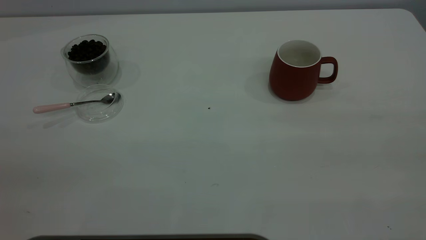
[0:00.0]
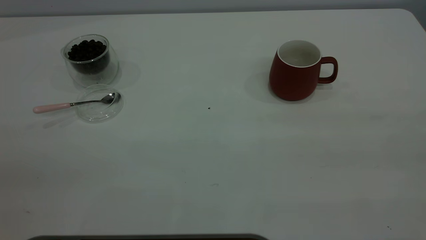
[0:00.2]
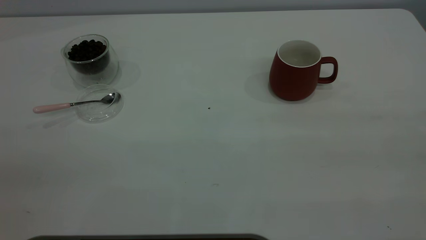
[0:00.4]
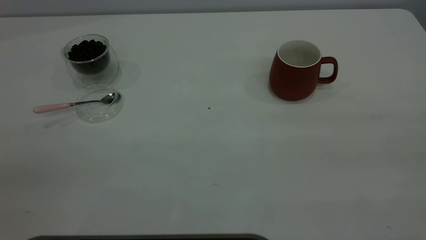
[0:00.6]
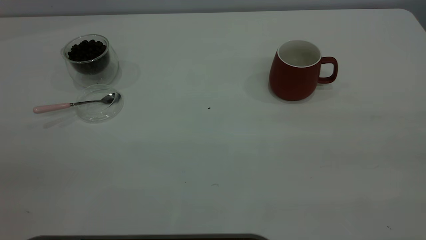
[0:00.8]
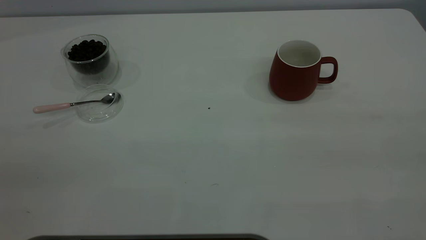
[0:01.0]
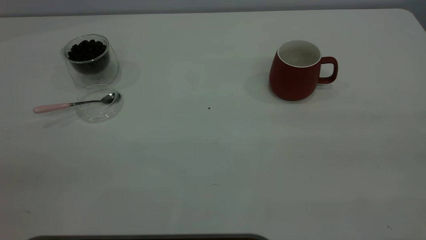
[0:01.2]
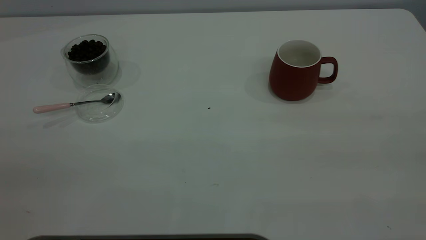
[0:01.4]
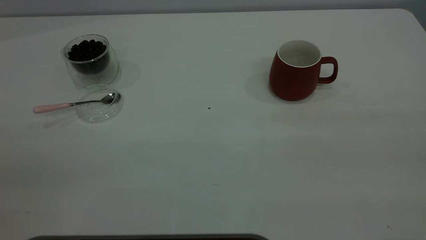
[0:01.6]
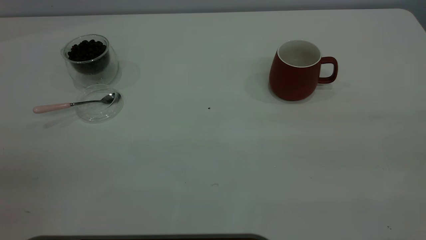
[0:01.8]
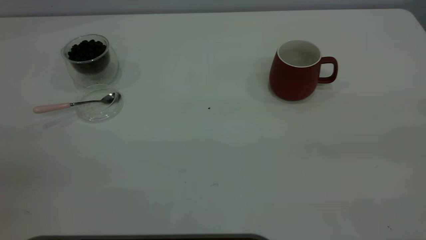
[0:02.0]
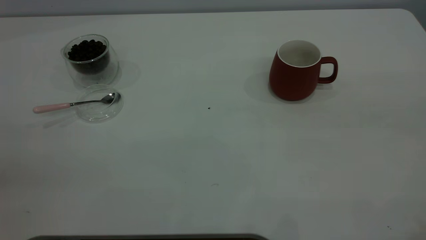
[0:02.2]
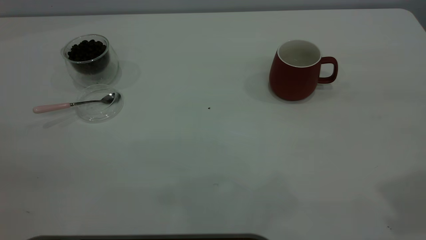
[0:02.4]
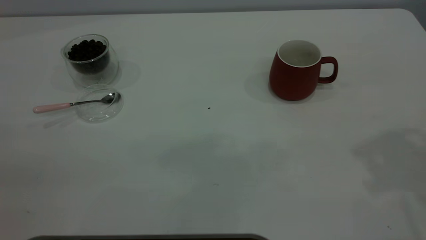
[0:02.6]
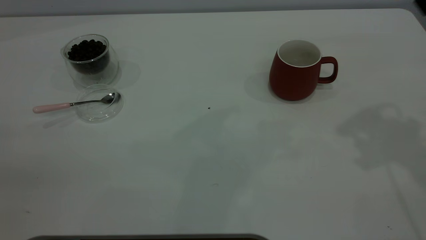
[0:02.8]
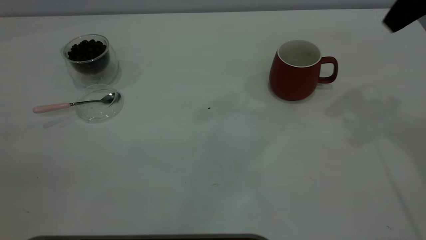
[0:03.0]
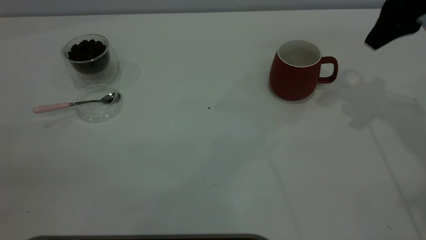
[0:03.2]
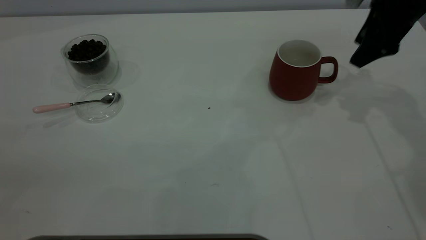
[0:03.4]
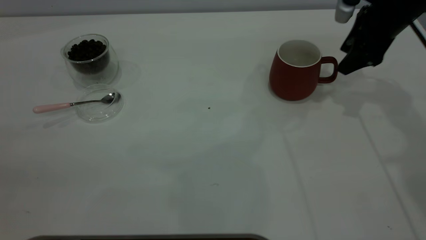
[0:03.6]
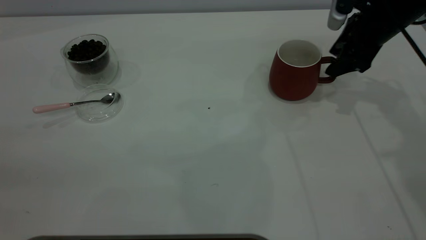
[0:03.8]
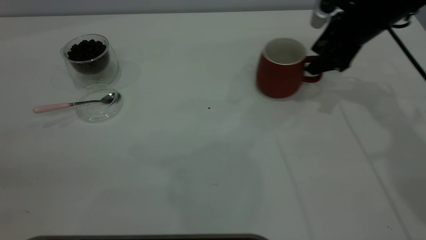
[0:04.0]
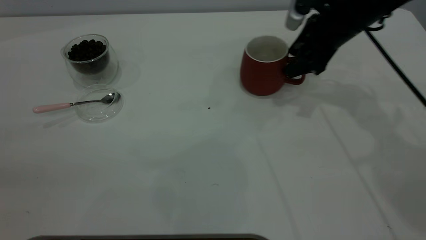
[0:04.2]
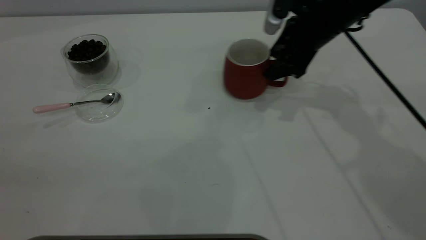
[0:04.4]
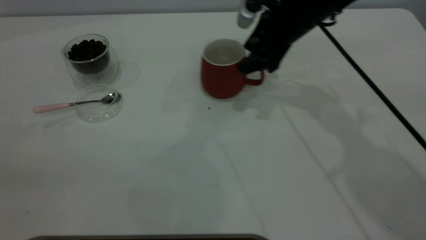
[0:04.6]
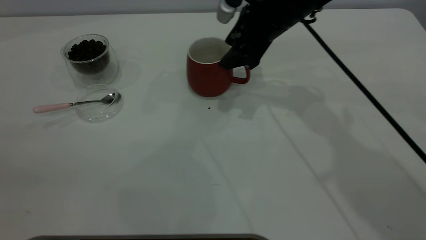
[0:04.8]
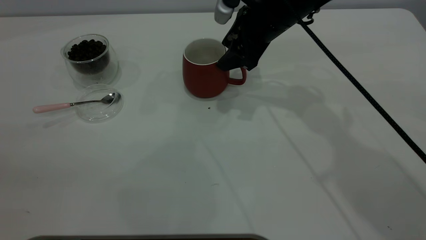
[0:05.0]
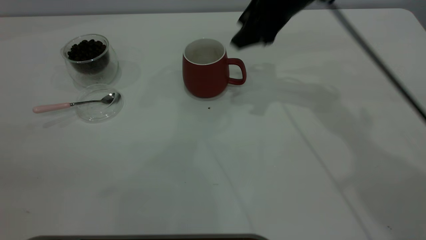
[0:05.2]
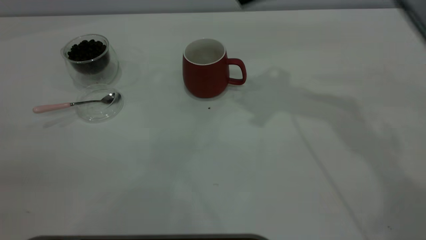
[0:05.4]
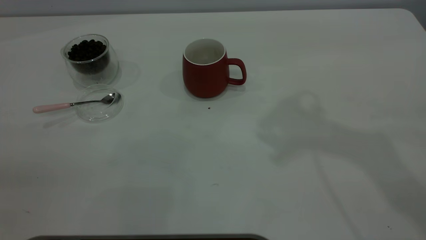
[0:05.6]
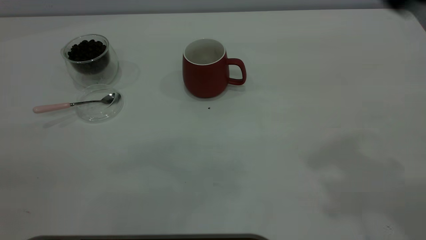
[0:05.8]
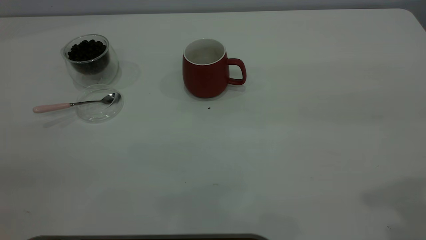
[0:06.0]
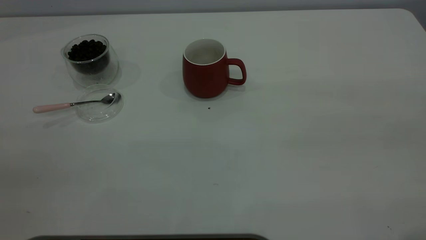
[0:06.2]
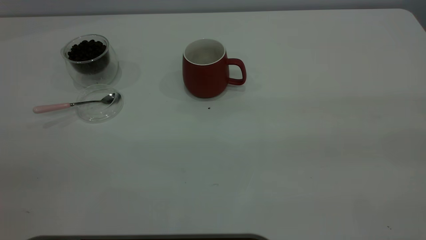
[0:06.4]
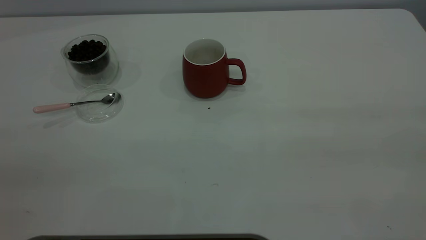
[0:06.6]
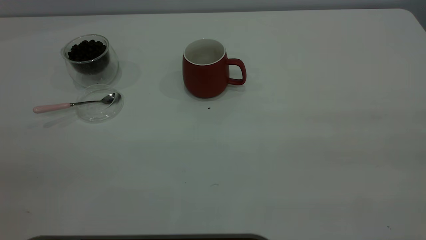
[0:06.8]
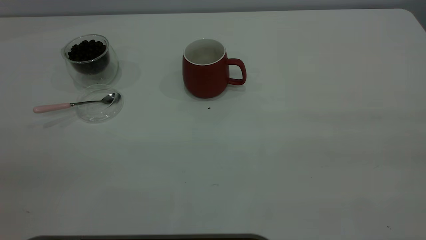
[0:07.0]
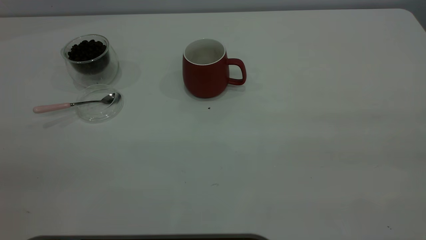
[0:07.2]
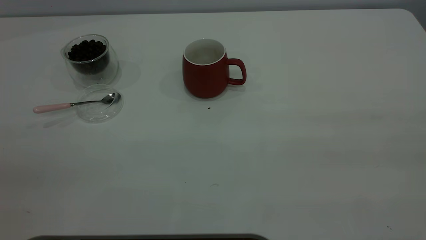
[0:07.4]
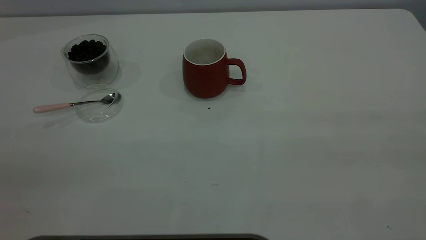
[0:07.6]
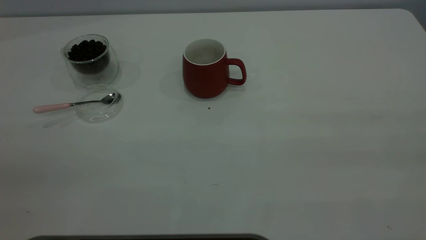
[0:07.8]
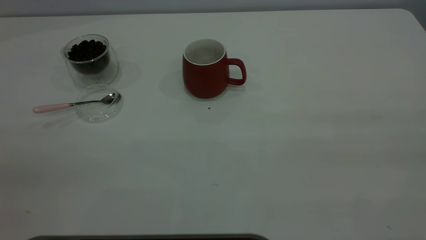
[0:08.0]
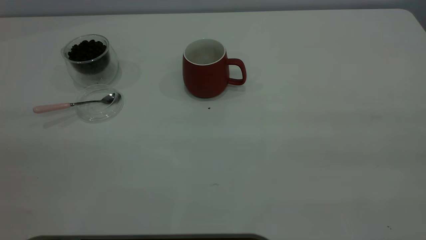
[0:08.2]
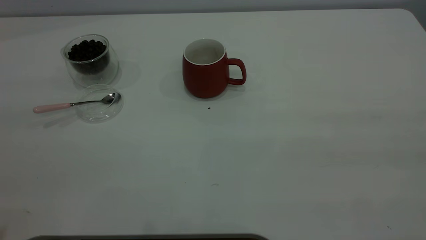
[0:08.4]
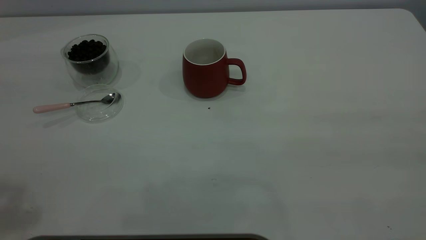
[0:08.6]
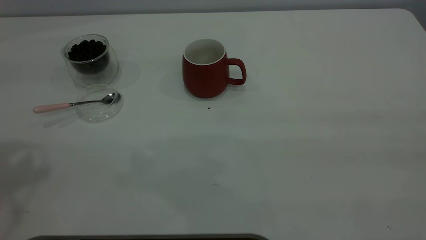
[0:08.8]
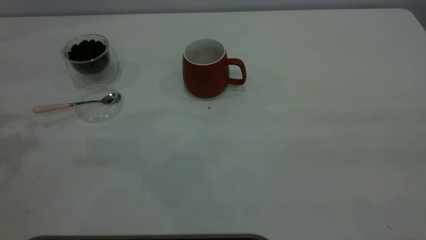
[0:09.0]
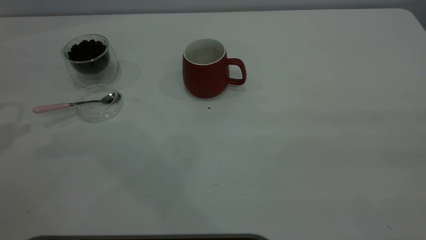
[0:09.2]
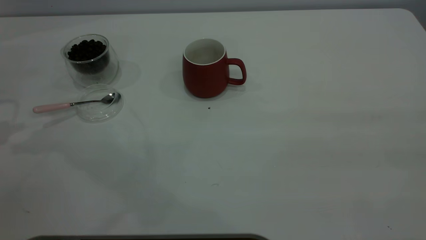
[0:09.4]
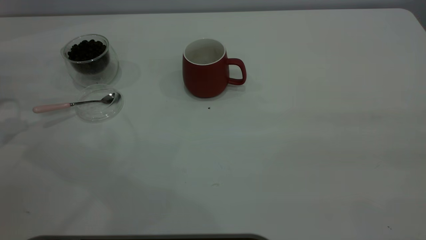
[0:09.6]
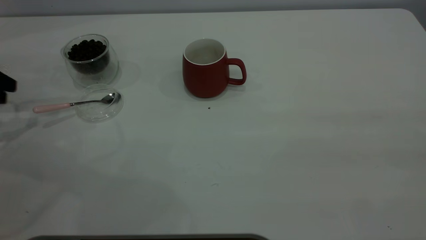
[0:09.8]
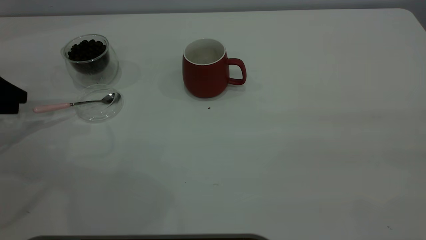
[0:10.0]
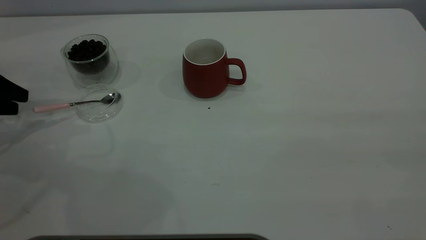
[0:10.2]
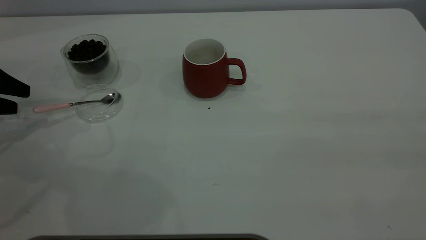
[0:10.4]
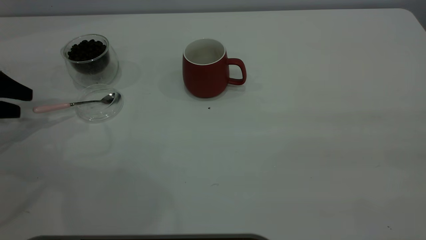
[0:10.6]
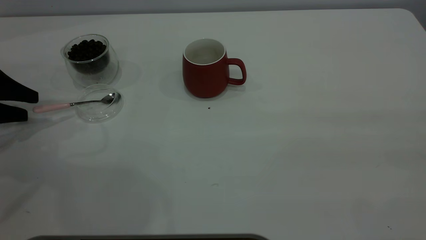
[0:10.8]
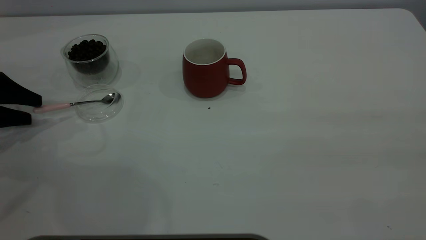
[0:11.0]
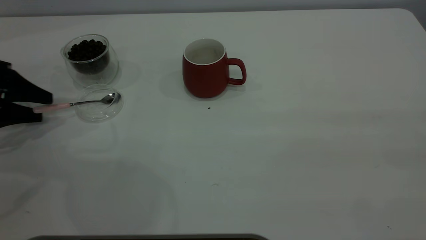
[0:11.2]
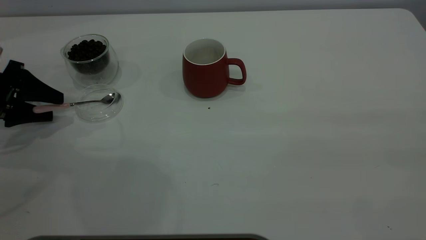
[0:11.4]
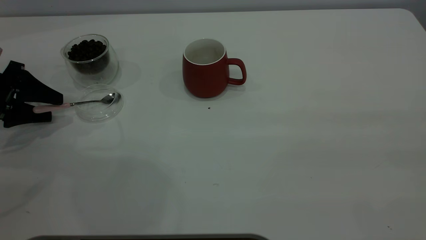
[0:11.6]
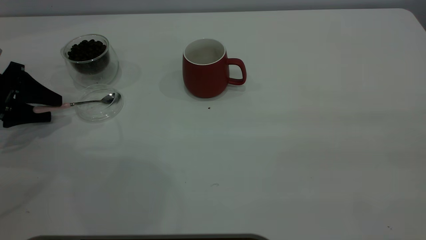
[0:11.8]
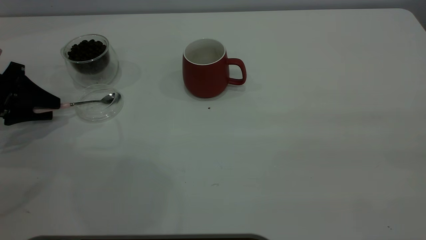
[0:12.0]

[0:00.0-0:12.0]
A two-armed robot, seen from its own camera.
Task of the whole recording: the right gripper place the red cup in the center of the table, the left gripper take the pink spoon from the cup lid and scoop out the coffee beans from the coffee cup and put them into the red cup, the left gripper put the spoon back into the cup lid.
Step, 0:00.0 to 0:05.0: Move the cup to the center of view.
0:00.0 to 0:01.6: Both grippers stay about where they are.
0:01.6 to 0:03.0: The right gripper moves forward, some 35 cm.
0:03.0 to 0:04.4: The right gripper travels downward, to the left and forward by roughly 20 cm.
0:04.4 to 0:06.0: The right gripper travels backward and upward by approximately 35 cm.
0:09.0 to 0:10.4: The left gripper goes some 20 cm downward.
0:10.4 to 0:12.0: The left gripper ends up some 5 cm from where it was, and closes.

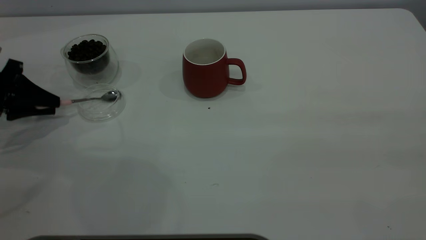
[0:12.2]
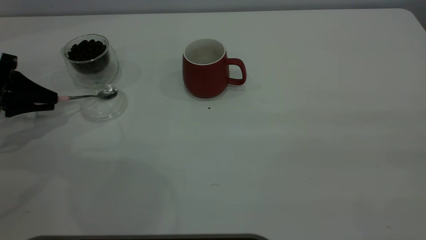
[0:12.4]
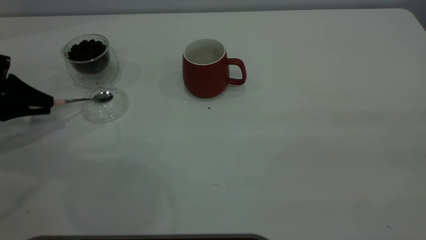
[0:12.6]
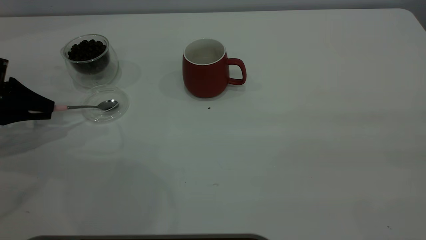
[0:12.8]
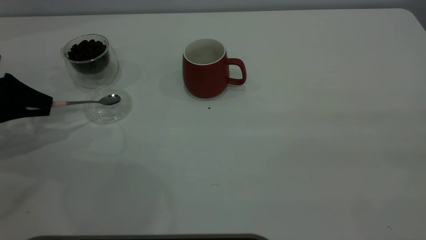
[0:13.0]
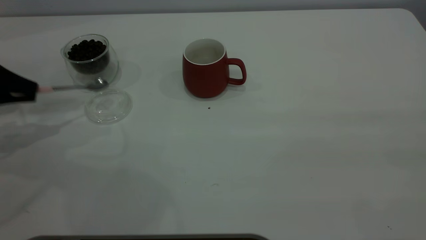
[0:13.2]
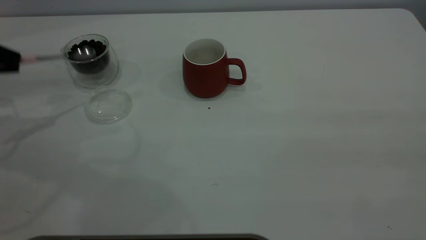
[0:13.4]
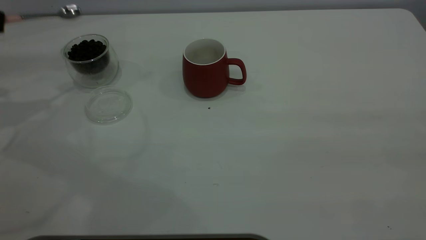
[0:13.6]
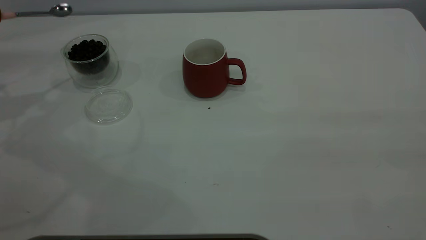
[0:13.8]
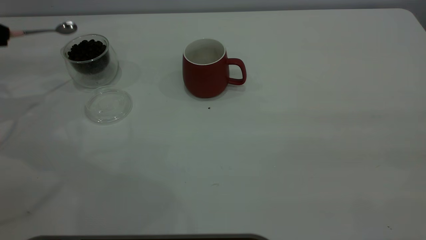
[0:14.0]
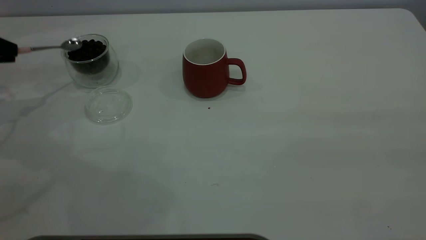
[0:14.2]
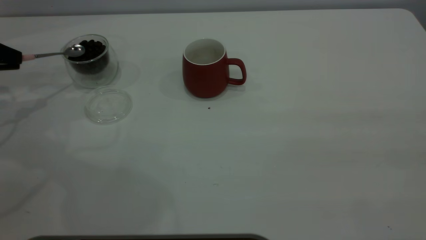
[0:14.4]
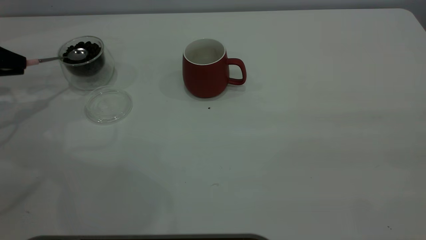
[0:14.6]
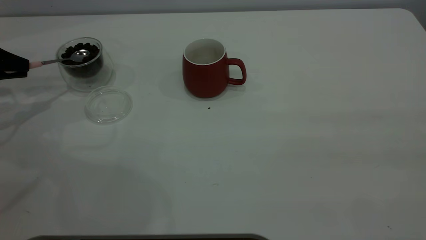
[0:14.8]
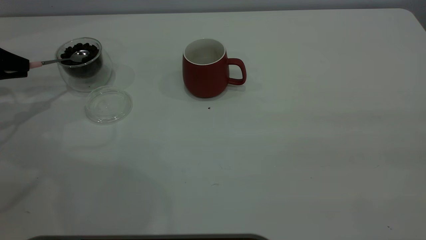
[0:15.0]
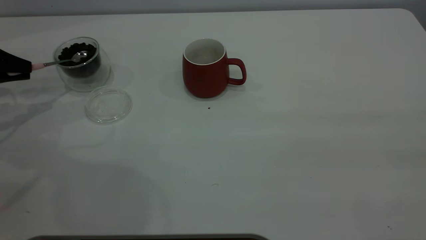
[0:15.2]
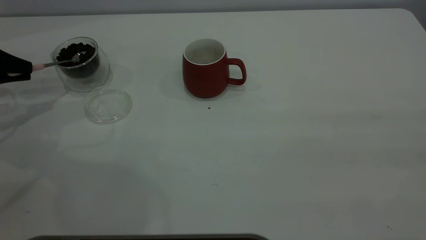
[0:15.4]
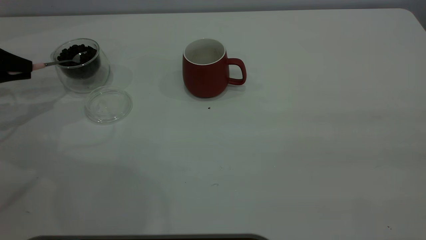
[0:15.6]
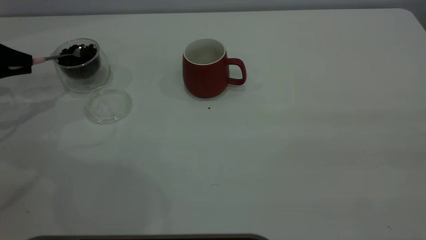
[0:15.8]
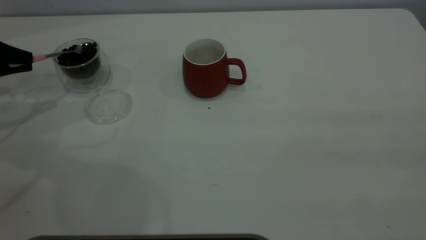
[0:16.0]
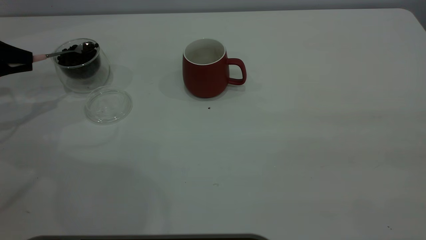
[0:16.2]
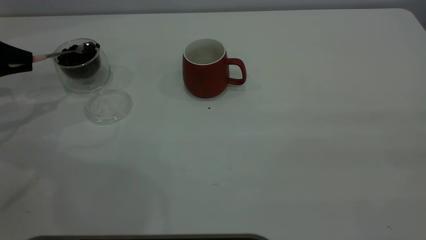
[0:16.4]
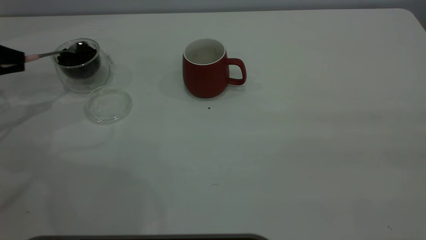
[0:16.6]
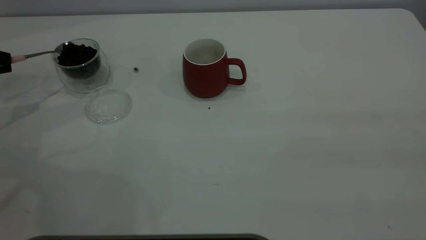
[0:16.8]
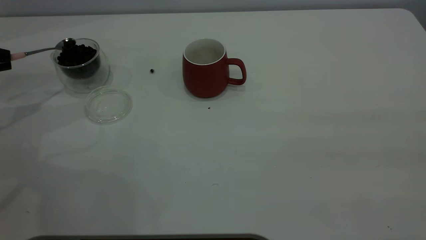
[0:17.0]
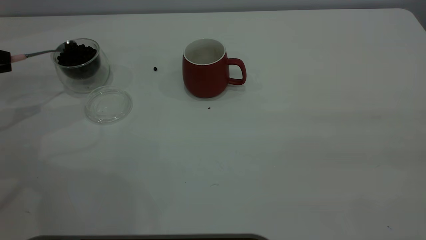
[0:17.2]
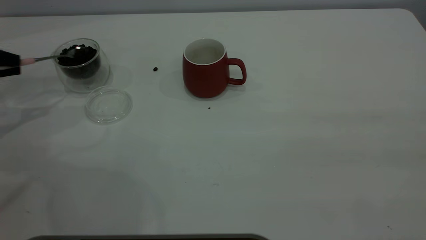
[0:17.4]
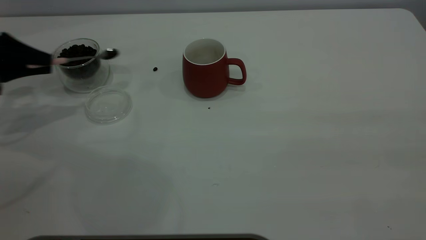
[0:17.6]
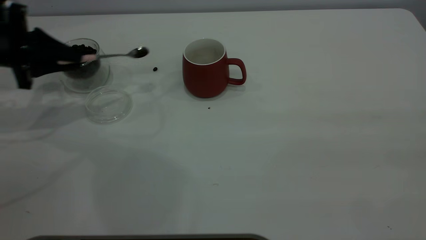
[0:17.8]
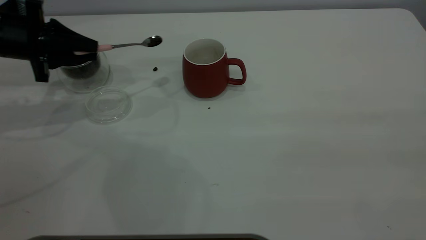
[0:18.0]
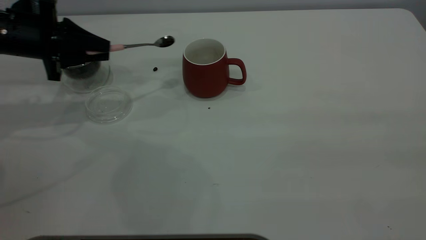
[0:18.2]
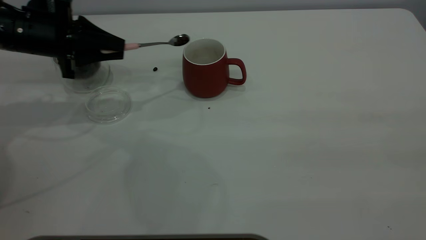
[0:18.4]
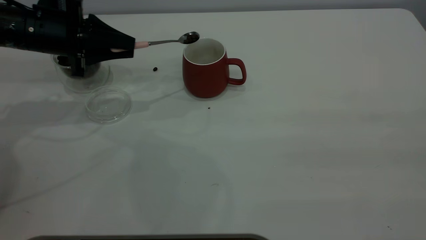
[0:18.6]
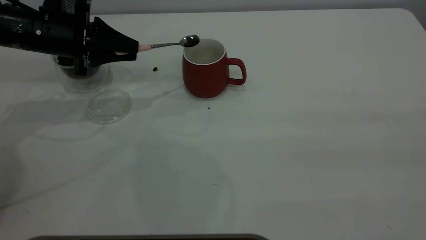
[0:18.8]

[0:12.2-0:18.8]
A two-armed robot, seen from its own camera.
Task of the whole recording: the right gripper place the red cup in the center of the table, the left gripper take the pink spoon from the cup lid and scoop out the coffee beans from the coffee cup and put them into the red cup, the left gripper put the spoon back into the cup lid.
0:12.2 to 0:13.8: The left gripper shifts roughly 10 cm upward.
0:13.8 to 0:15.4: The left gripper shifts approximately 10 cm downward.
0:15.4 to 0:17.2: The grippers make only small movements.
0:17.2 to 0:18.8: The left gripper travels to the right by some 20 cm.
